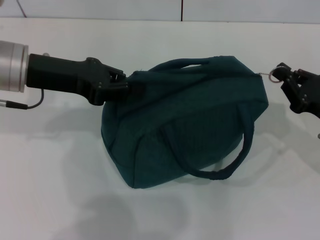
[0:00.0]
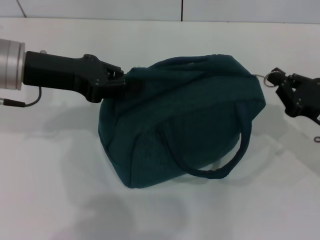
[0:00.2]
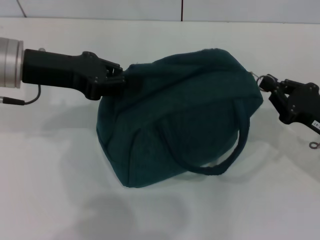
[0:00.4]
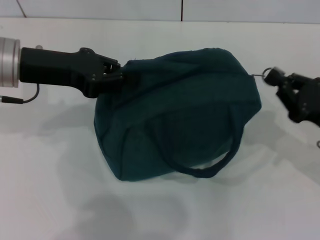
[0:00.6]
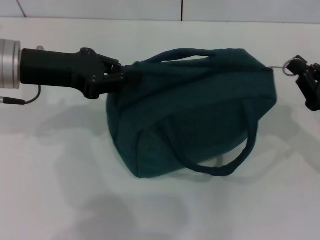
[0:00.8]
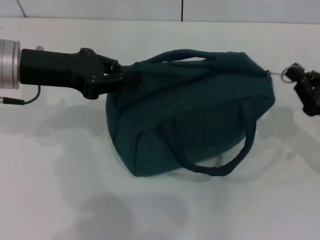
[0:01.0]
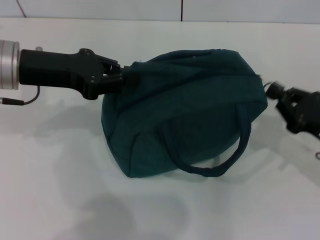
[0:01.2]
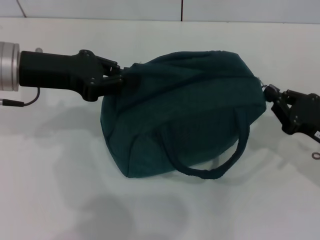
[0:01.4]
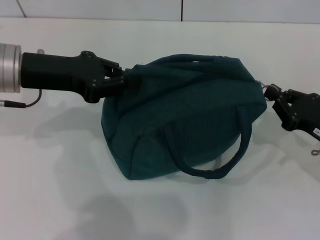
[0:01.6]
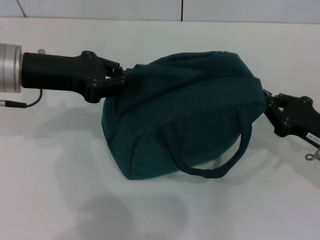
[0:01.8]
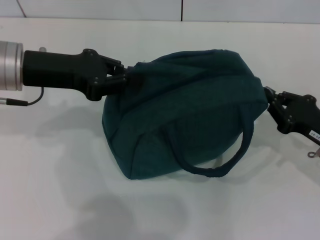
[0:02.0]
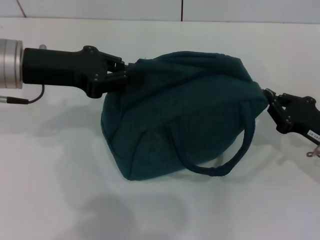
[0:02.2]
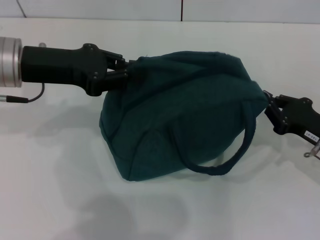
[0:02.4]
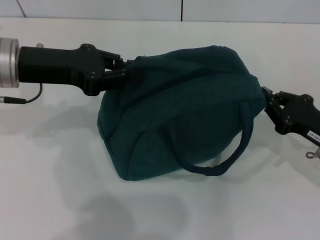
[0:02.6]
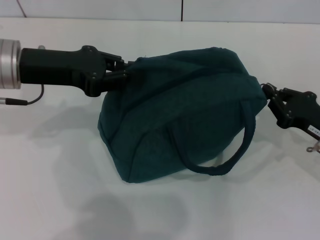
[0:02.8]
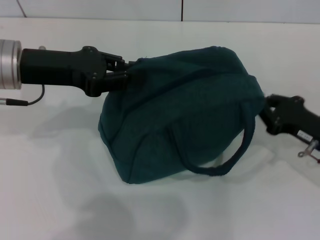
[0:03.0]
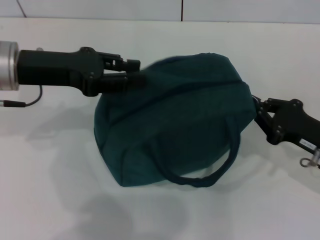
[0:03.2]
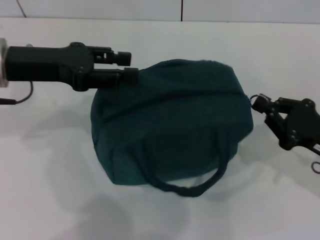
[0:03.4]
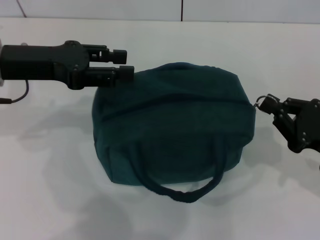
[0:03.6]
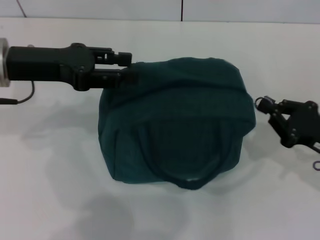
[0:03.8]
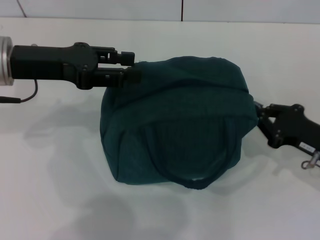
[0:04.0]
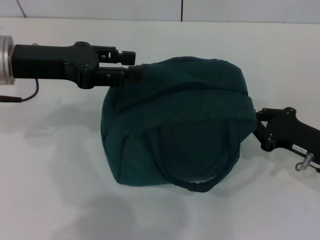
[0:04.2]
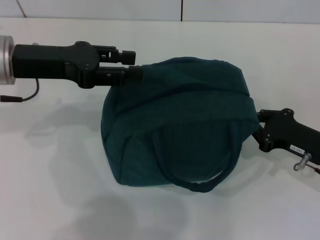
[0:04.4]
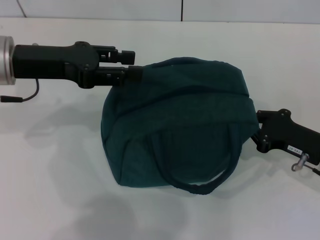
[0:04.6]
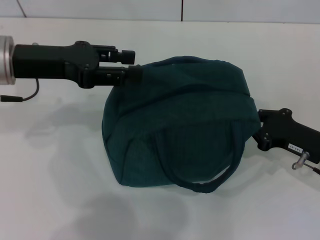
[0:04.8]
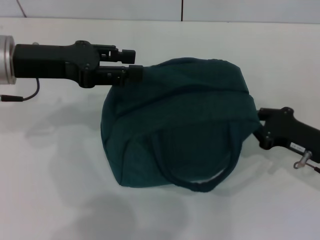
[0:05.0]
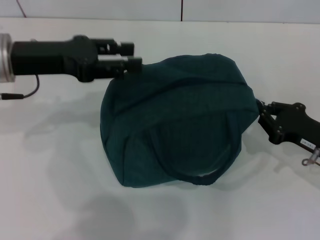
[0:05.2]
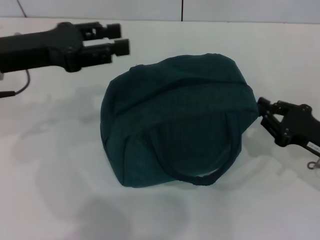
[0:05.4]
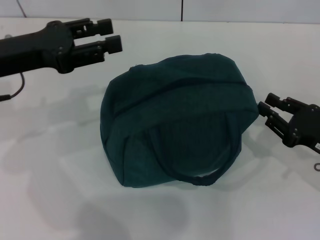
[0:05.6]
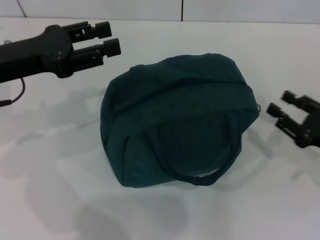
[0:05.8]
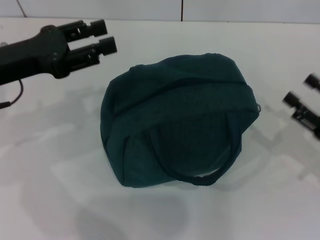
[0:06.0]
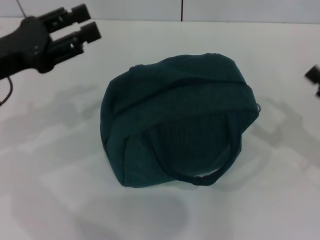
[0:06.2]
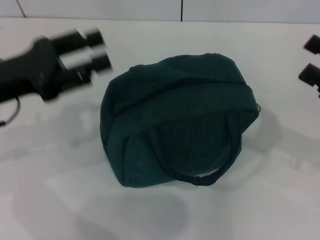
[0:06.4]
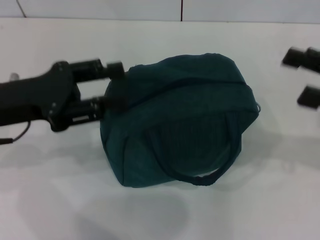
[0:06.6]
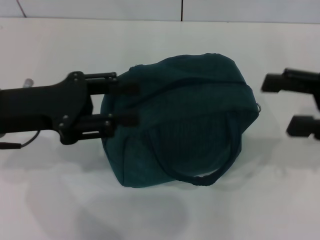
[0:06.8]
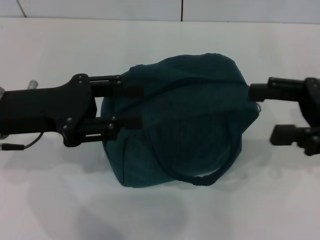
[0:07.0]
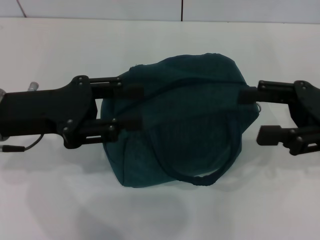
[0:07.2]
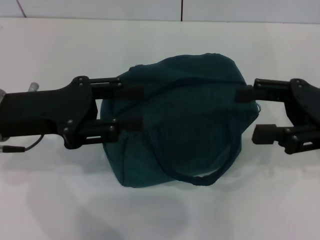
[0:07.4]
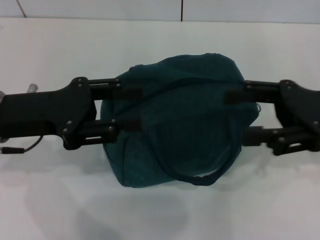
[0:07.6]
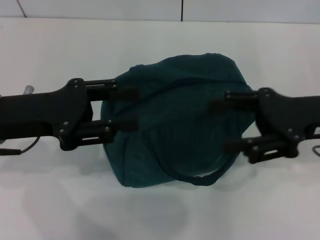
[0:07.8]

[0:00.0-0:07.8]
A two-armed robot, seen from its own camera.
Step, 0:00.0 to 0:03.4: Hold the lunch bag with your left hand.
Step, 0:03.6 to 0:05.6: Zip up the lunch bag with your right hand.
0:00.0 to 0:03.2: The grippers move only a little.
0:03.2 to 0:04.6: The left gripper opens.
0:04.6 to 0:06.2: The right gripper heads to the right and upward, covering roughly 10 cm, and opens up. Meanwhile the left gripper changes place by approximately 5 cm.
0:06.2 to 0:07.8: The right gripper moves to the left and upward, about 10 cm.

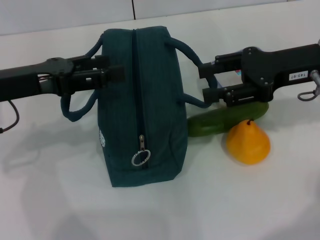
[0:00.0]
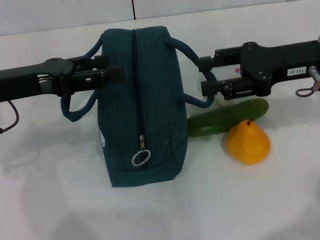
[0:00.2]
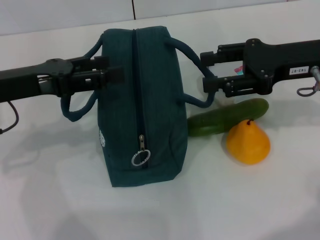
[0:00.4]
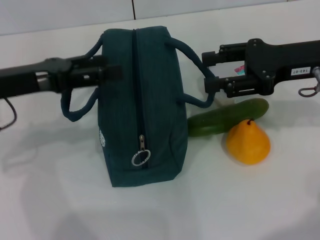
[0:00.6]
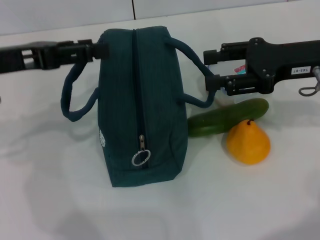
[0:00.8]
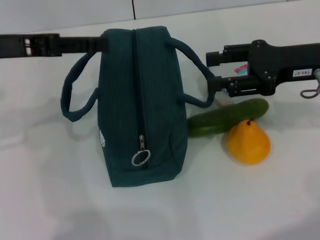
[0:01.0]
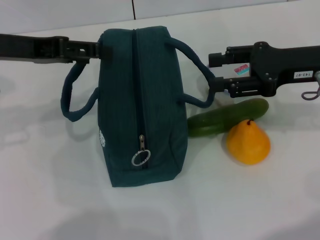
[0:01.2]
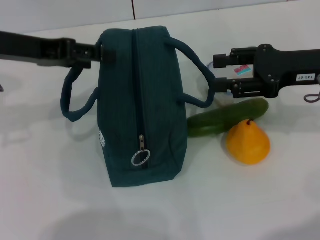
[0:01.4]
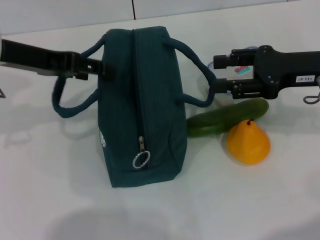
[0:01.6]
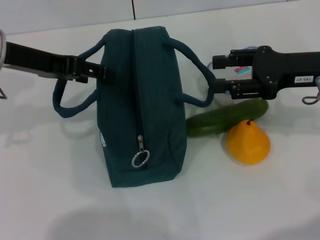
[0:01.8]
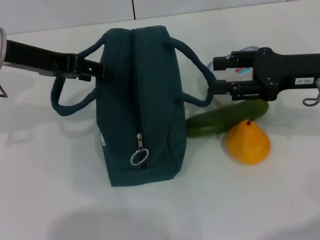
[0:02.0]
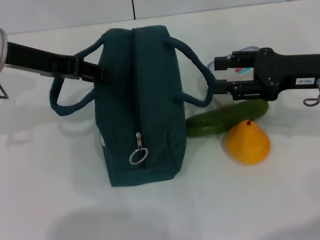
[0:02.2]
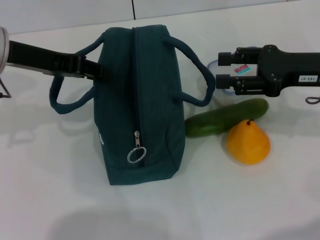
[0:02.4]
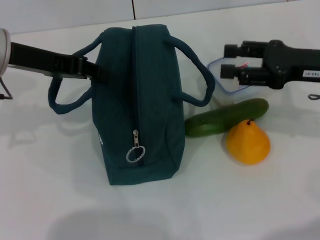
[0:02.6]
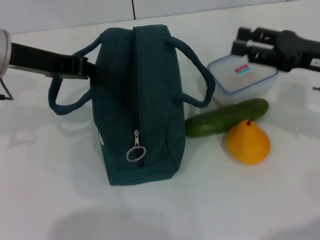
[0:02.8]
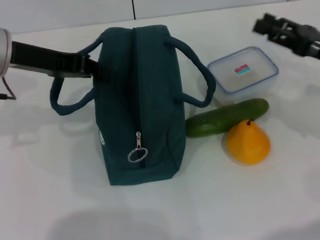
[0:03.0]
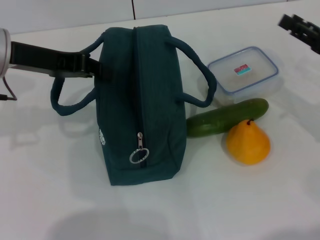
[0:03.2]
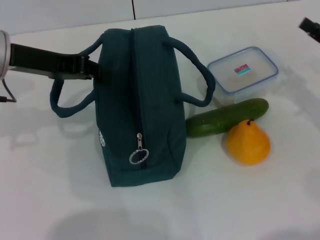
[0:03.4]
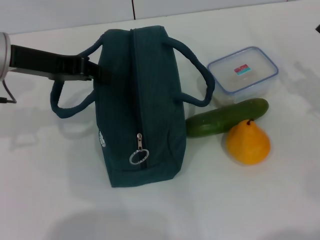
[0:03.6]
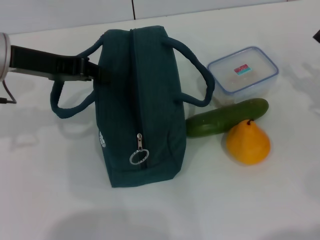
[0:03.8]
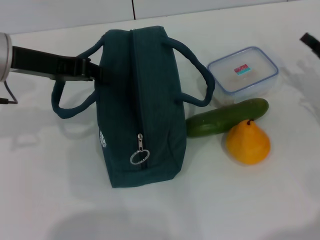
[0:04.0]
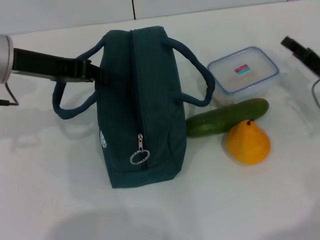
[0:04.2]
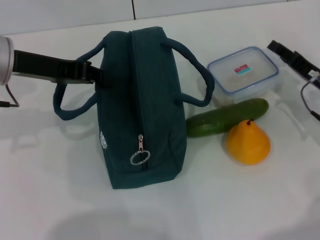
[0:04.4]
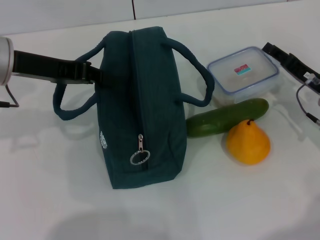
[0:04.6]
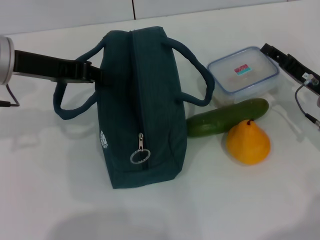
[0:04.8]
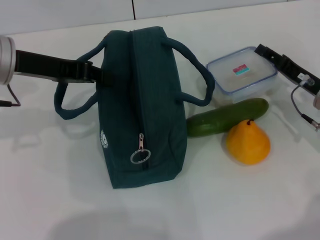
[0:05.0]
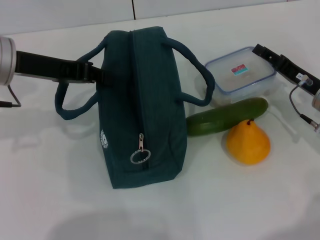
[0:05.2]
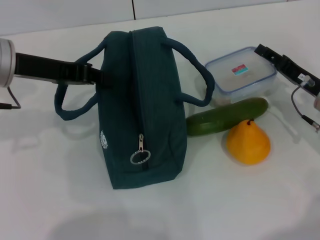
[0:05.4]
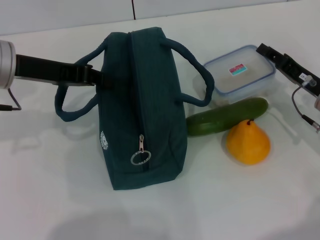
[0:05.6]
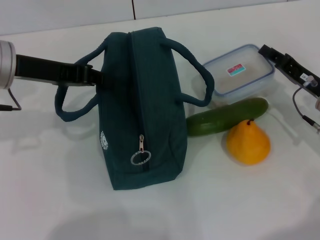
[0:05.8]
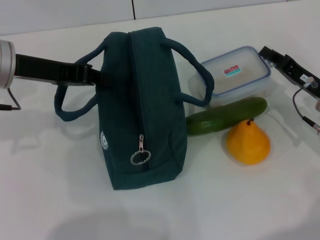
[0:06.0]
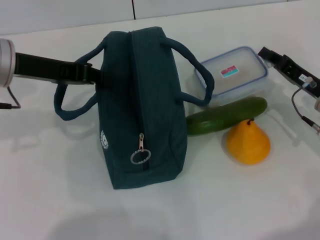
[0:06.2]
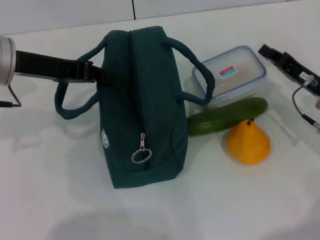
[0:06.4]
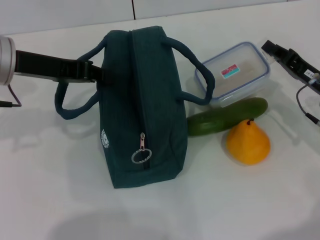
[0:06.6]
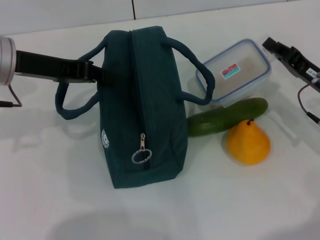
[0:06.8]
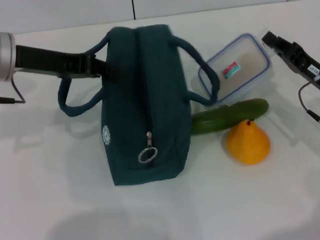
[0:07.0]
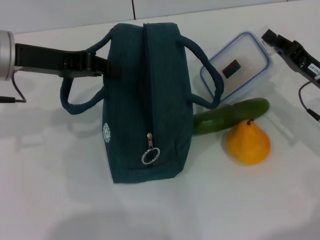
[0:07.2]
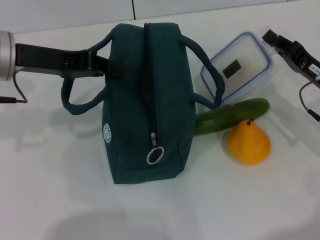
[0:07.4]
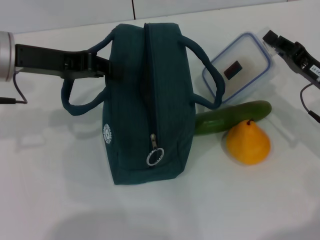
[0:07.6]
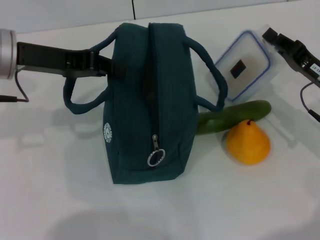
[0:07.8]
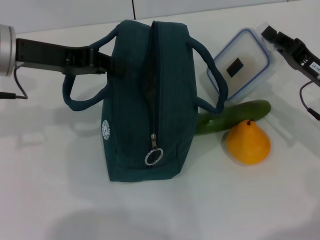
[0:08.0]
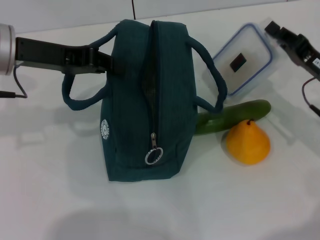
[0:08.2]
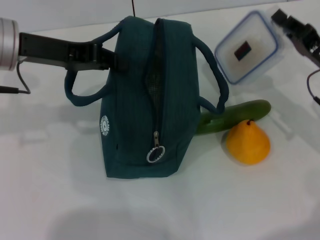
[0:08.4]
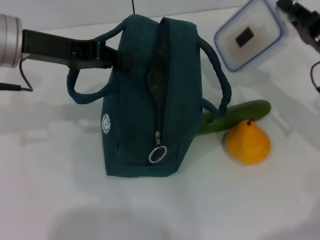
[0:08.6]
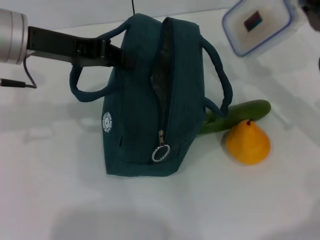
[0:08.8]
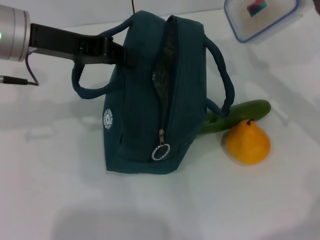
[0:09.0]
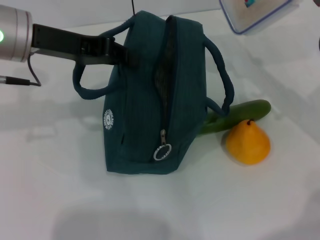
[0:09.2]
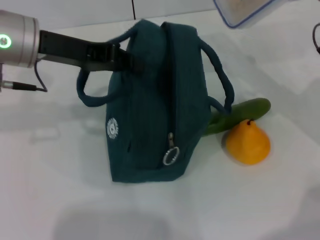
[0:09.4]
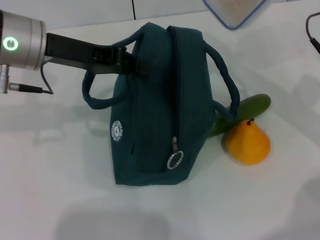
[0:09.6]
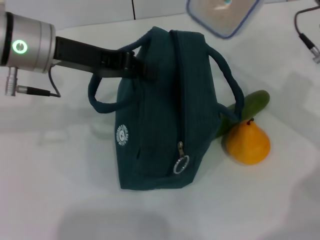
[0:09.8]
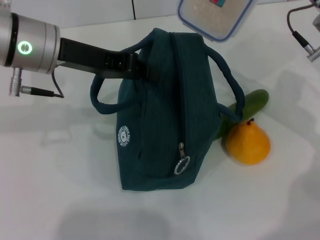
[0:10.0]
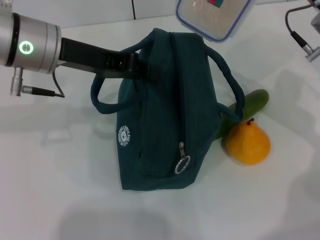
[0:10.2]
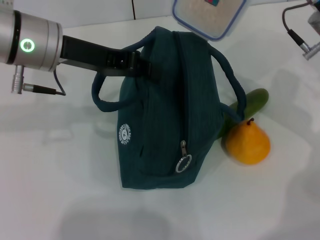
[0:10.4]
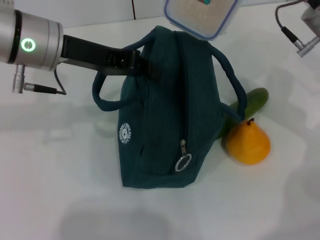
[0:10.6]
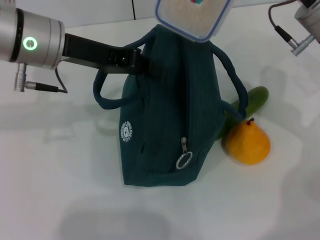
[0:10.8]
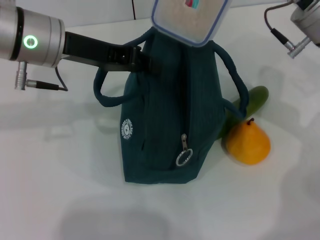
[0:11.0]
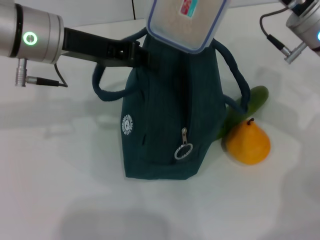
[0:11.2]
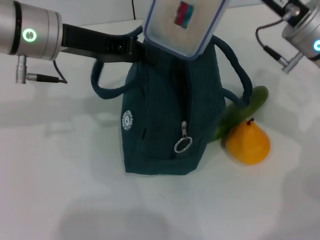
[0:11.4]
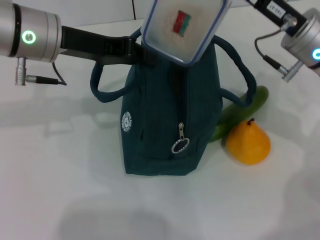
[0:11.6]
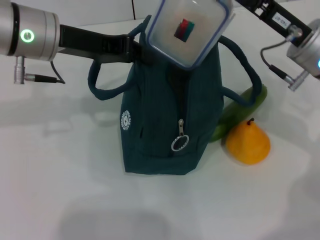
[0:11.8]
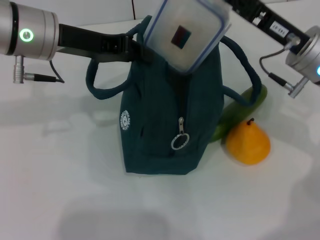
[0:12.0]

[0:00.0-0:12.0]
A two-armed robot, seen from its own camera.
Step, 0:00.0 to 0:02.6: Hold the lunch bag with your left hand.
Step, 0:03.0 to 0:07.6: Pick up the lunch box with your right hand.
0:00.0 to 0:01.6: The left gripper shifts by some 5 cm.
0:01.6 to 0:03.0: The left gripper closes up. The right gripper changes place by about 5 cm.
0:03.0 to 0:04.4: The right gripper goes some 10 cm downward.
0:04.4 to 0:06.0: The right gripper closes.
0:06.0 to 0:07.6: The grippers stay close to where they were, moving slightly.
0:07.6 to 0:09.0: The right gripper heads upward, covering approximately 5 cm.
0:09.0 to 0:10.4: The right gripper goes some 5 cm to the left.

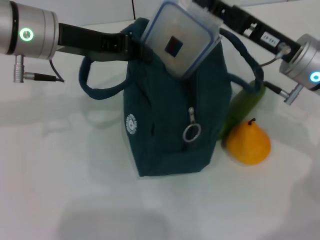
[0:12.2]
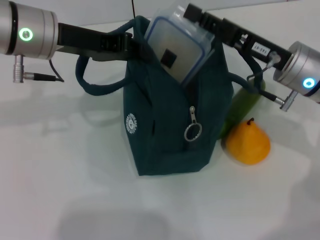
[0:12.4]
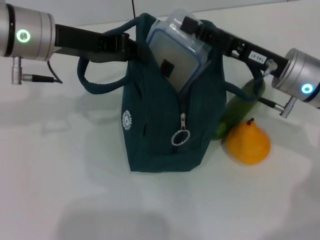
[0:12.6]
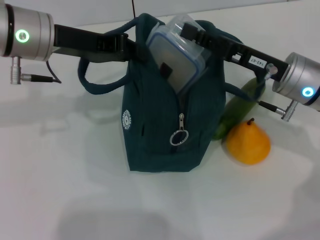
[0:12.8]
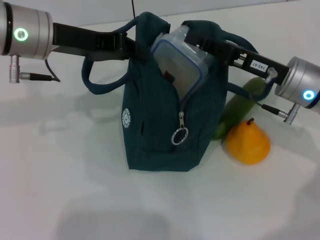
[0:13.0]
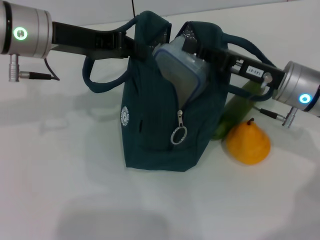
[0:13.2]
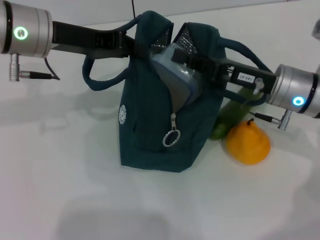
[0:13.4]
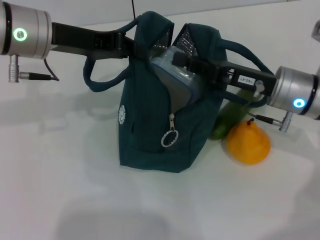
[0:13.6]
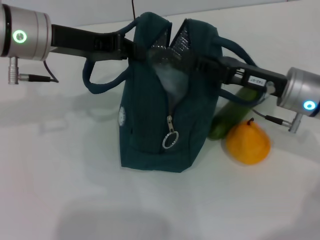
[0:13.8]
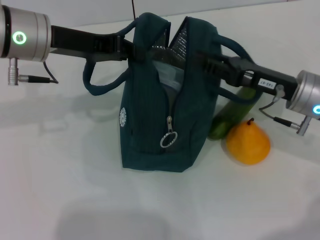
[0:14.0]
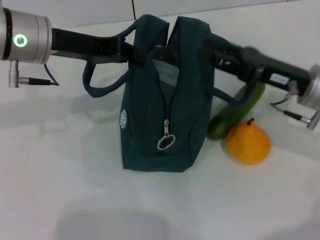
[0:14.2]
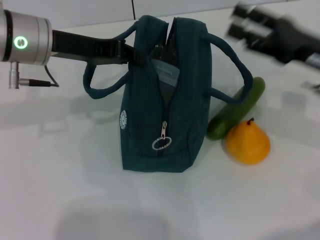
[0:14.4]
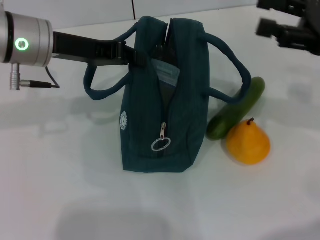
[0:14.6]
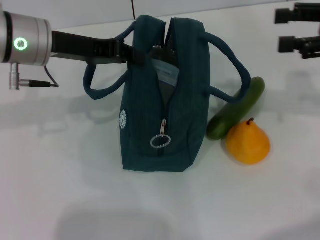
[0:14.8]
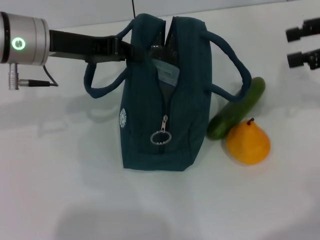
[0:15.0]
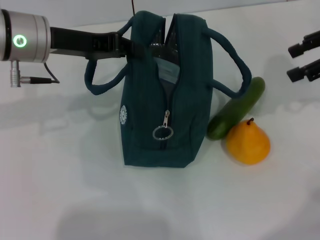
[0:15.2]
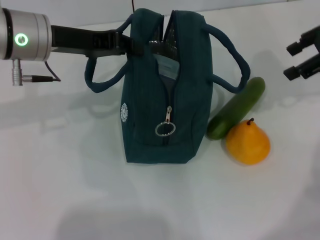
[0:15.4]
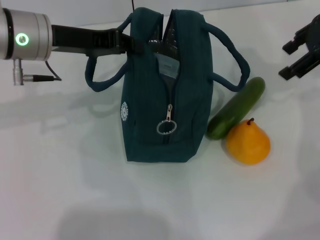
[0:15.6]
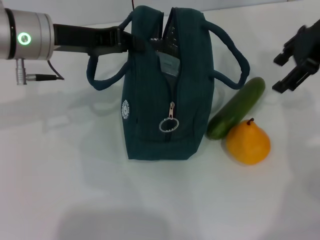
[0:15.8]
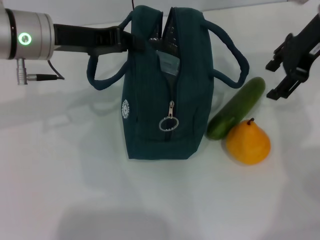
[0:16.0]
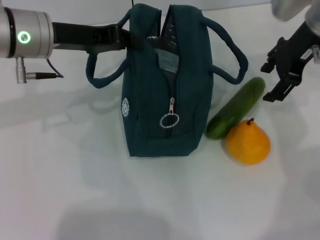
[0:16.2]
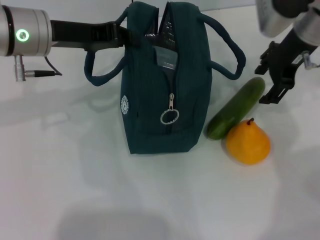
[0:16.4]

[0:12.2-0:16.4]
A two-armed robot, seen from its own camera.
0:13.6 to 0:15.0: The right gripper goes roughly 20 cm to the right and upward, and opens.
0:15.0 to 0:16.4: The right gripper is displaced to the left and forward by about 15 cm.
